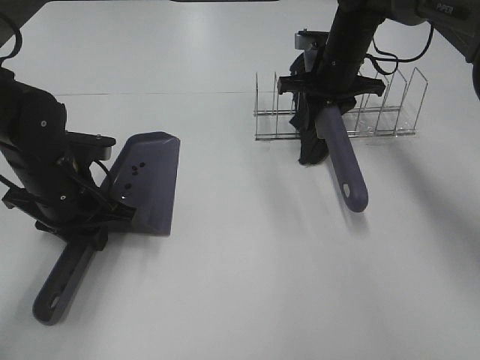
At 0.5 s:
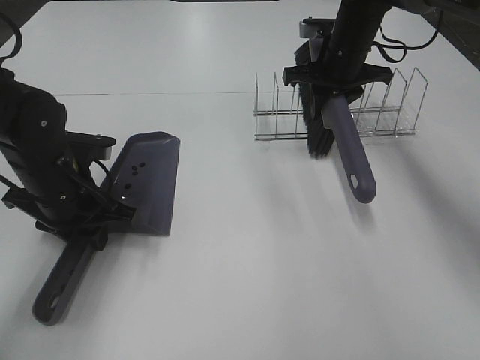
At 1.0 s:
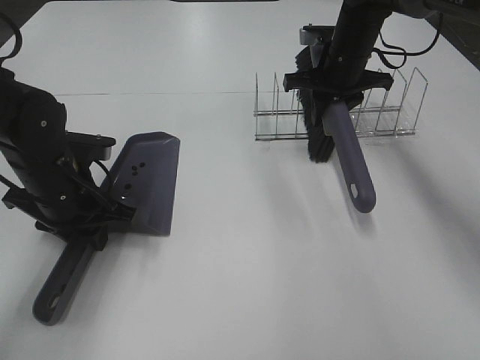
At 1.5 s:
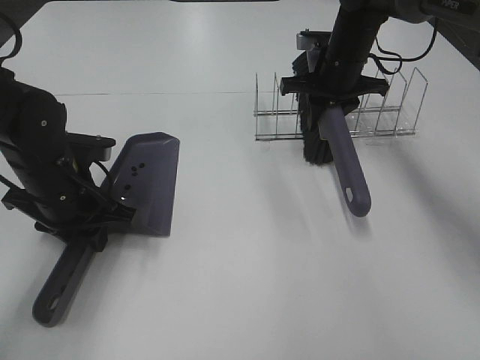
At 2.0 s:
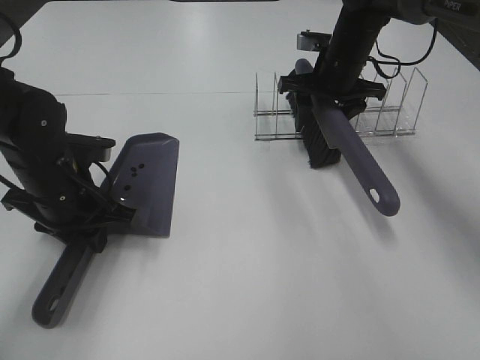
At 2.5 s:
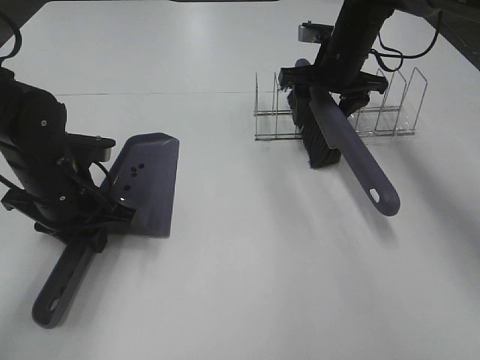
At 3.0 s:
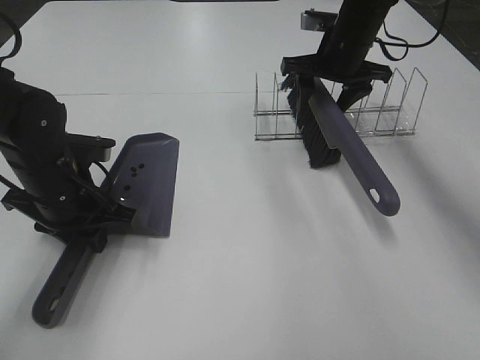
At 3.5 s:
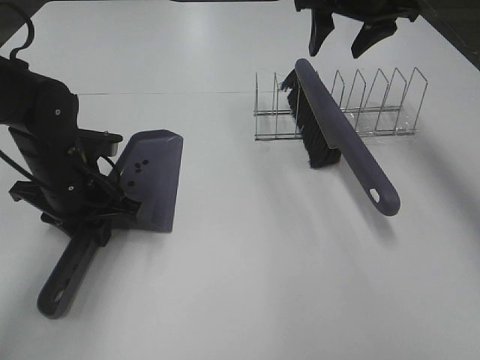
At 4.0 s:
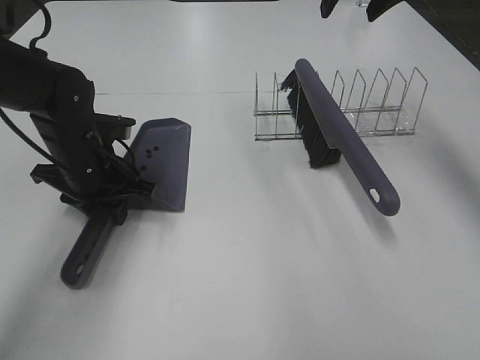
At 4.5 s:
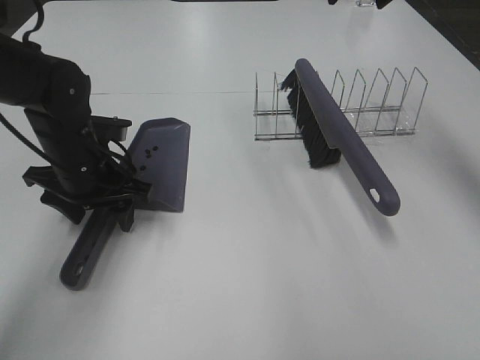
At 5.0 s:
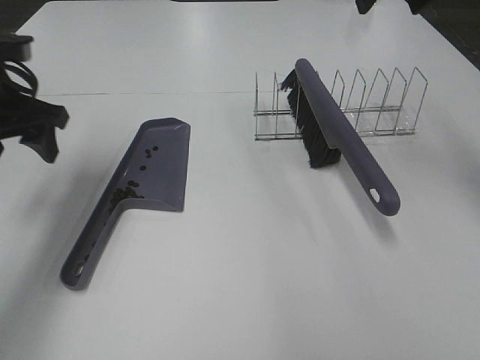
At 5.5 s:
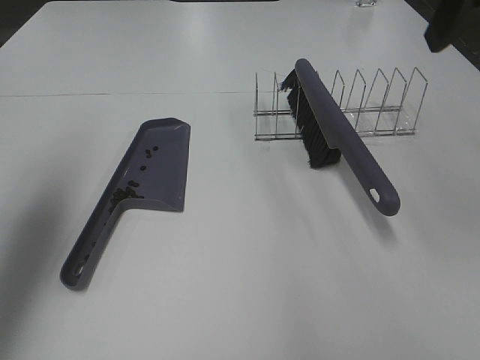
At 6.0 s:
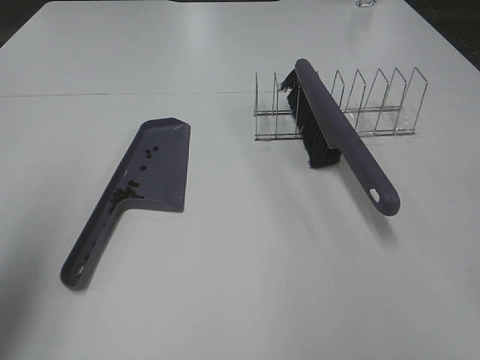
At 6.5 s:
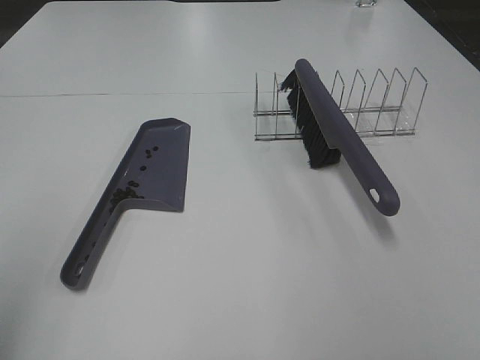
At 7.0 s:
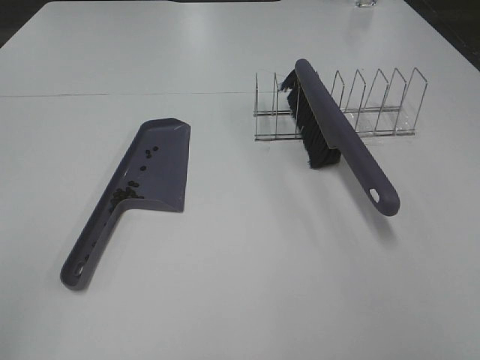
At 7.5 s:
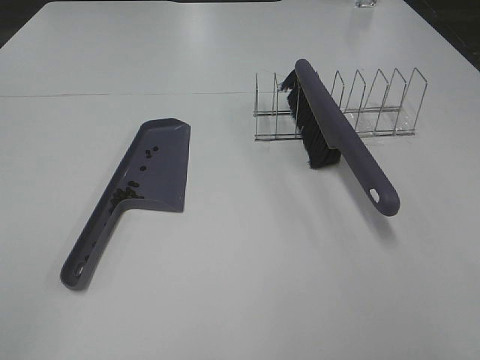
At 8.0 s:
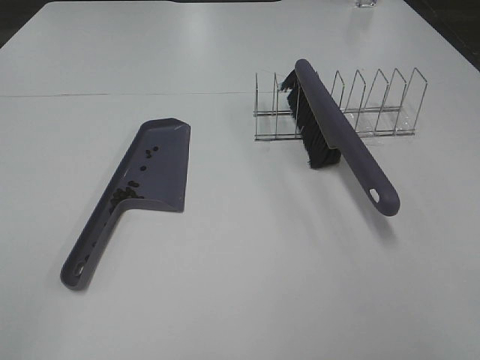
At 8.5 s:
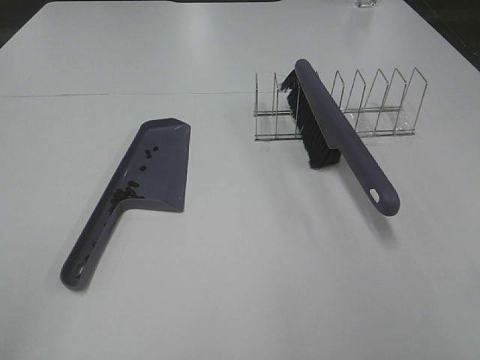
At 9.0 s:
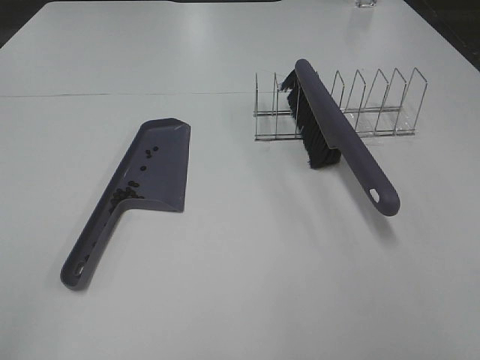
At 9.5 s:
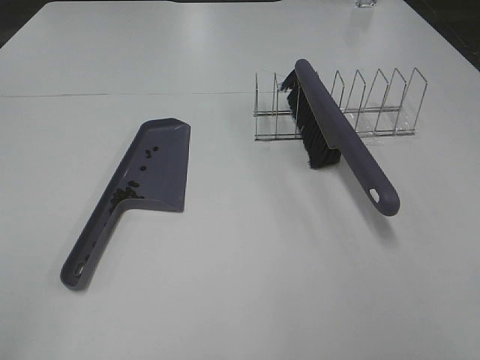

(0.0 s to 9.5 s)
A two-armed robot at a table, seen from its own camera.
Task of the whole recording: Sweep Coffee Bean.
Step, 0.0 s - 2.5 s: Right hand:place the broom on the rack.
Step, 3.0 s - 4.0 s: Left hand:place the dustpan on the table.
0.0 s - 2.0 s: The right gripper opens up.
2.0 s - 4.0 s: The right gripper travels upward by some 20 cm.
4.0 s - 5.5 s: The right gripper travels backward by about 20 cm, while the left gripper is displaced upward, to the left and backward by about 25 cm, and opens its fingers.
5.5 s - 7.5 s: The two grippers go approximately 25 cm backward.

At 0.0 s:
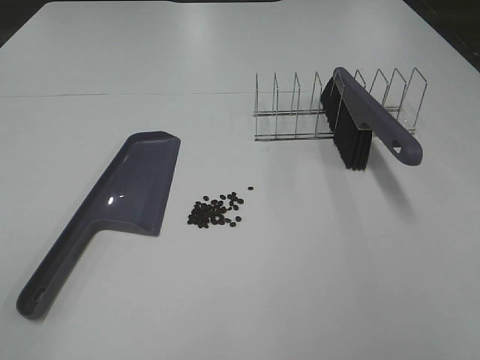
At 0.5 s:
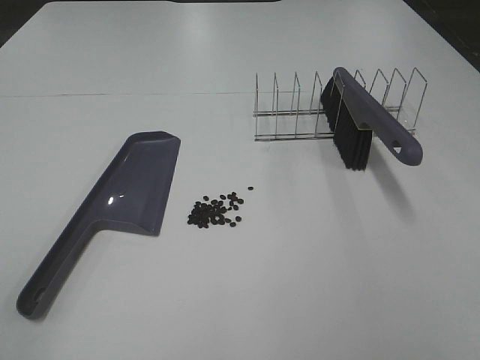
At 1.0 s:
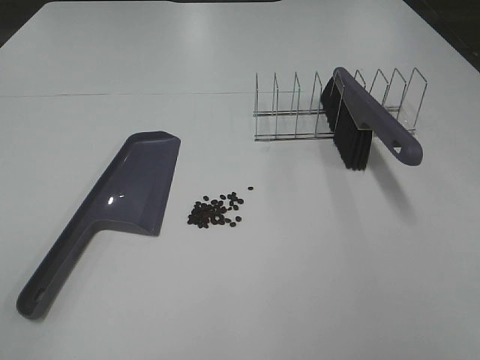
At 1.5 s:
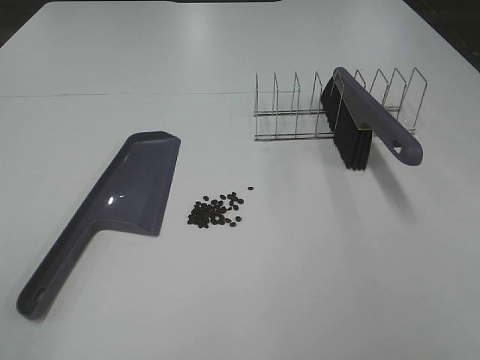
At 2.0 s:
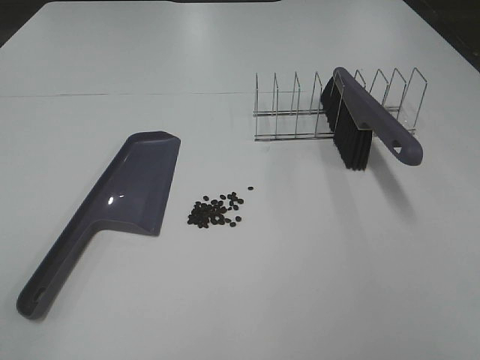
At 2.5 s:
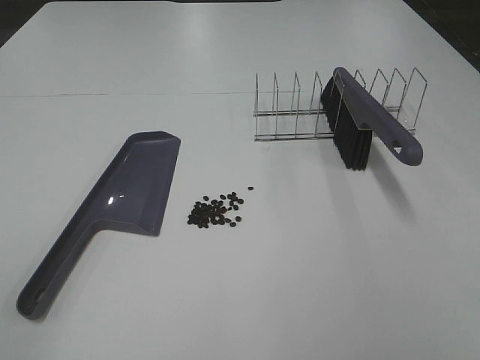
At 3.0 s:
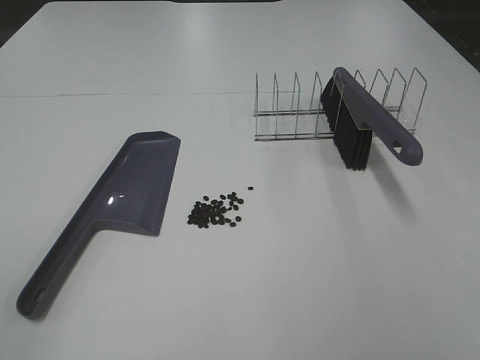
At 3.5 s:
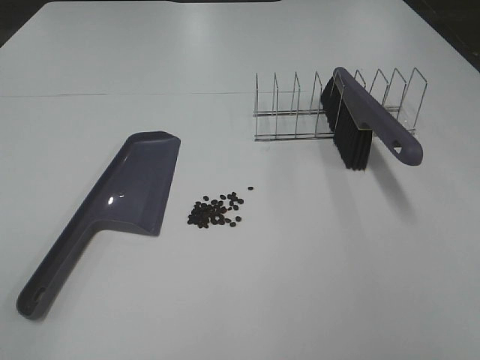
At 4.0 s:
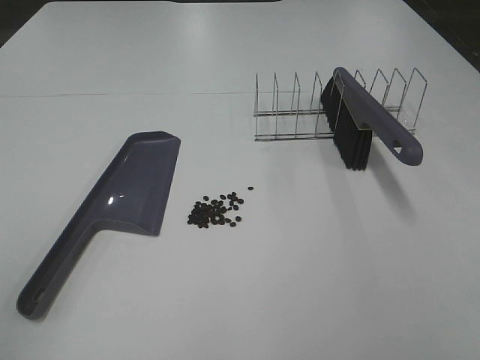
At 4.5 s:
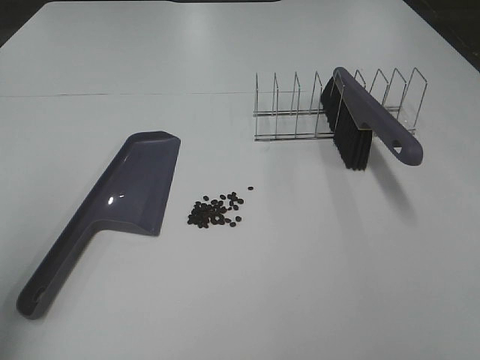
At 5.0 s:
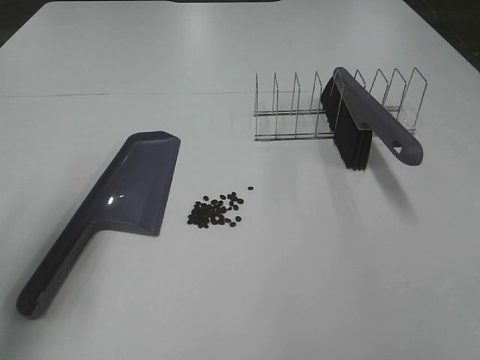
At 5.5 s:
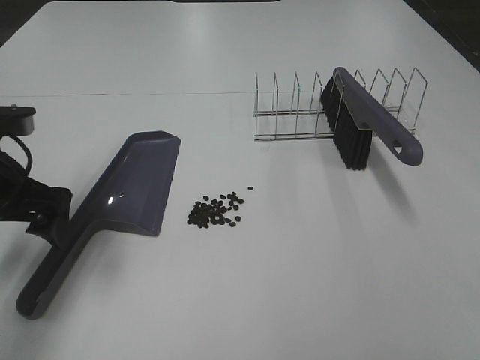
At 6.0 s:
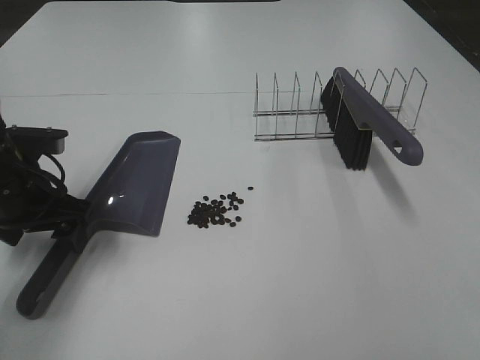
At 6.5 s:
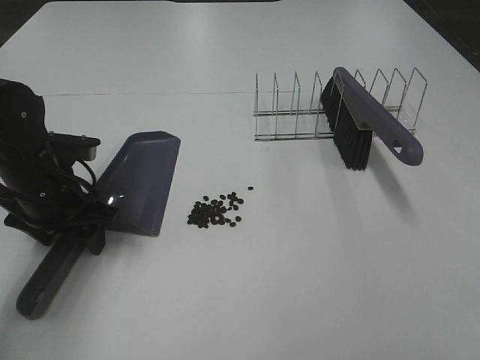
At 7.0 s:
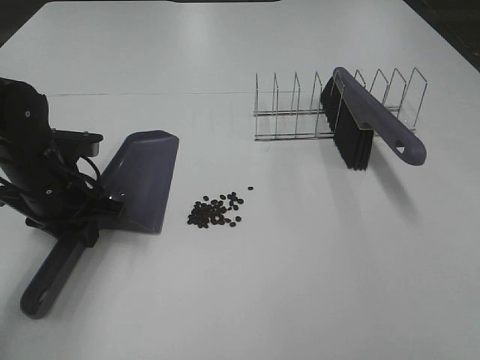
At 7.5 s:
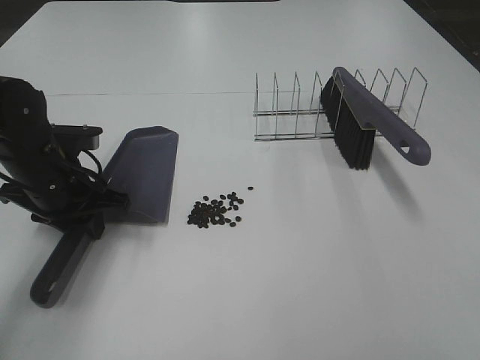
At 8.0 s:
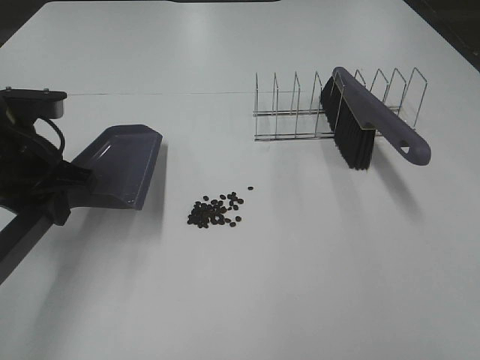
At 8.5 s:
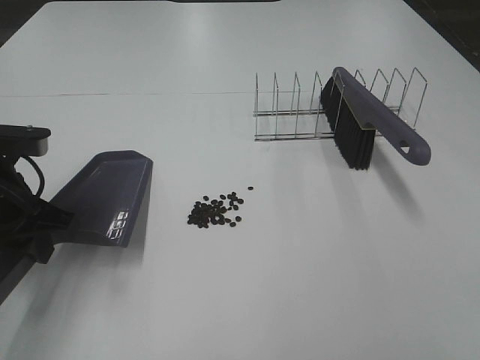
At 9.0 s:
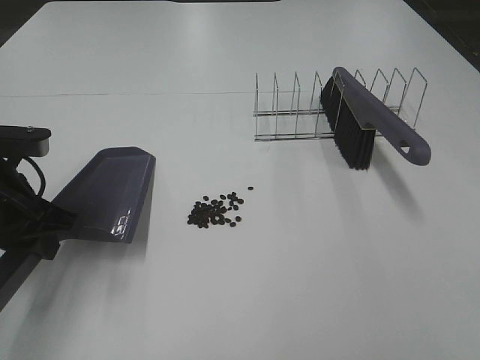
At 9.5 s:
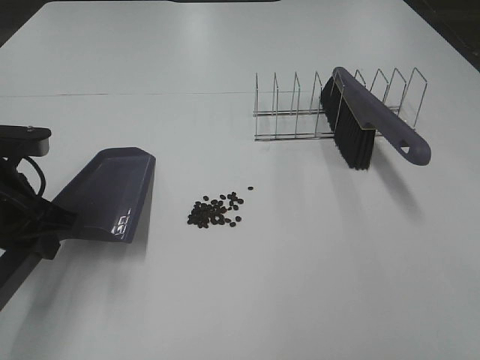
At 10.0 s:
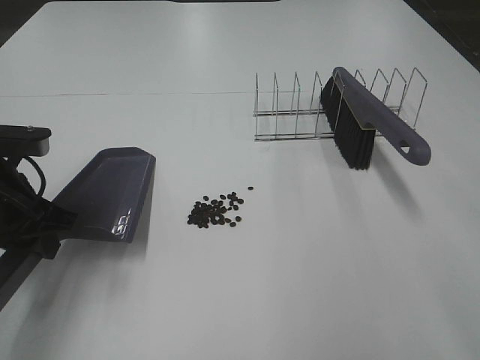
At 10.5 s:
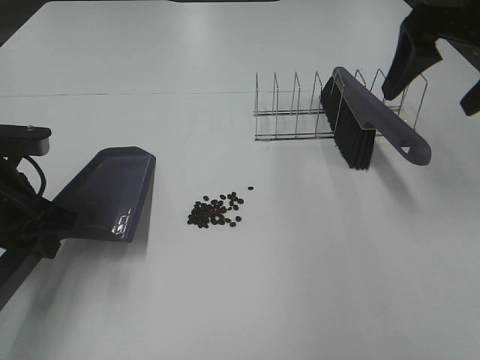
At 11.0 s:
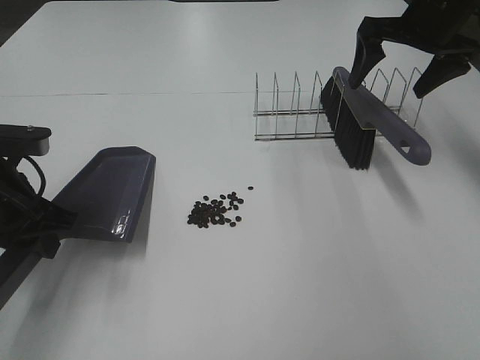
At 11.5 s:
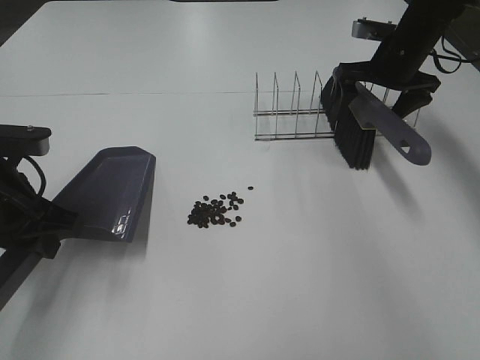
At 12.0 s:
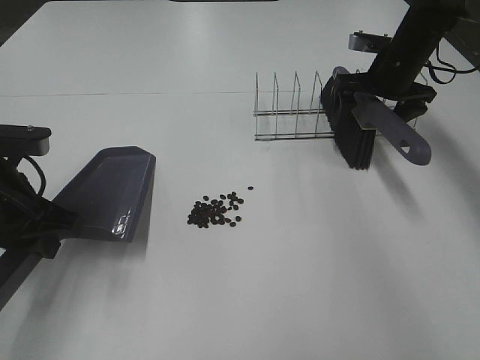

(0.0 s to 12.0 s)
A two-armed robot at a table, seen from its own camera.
Task of the whole recording: Sweep Coffee Bean.
Step, 0.0 s - 7.0 s: Left hand: grab the dustpan.
0.0 s - 2.0 s: The two grippers keep their place.
4.0 s - 6.0 s: The left gripper shifts about 35 cm forward and downward.
6.0 s - 8.0 s: The left gripper travels upward by some 5 cm, and closes up.
10.0 s - 12.0 s: The right gripper is displaced forward and downward by approximately 40 cm.

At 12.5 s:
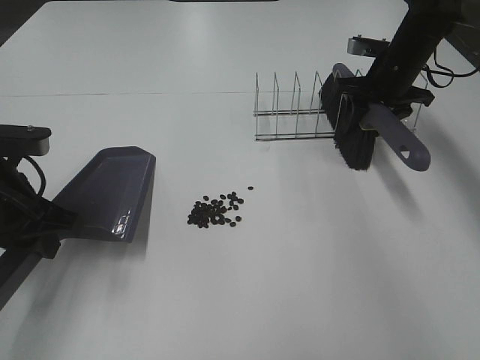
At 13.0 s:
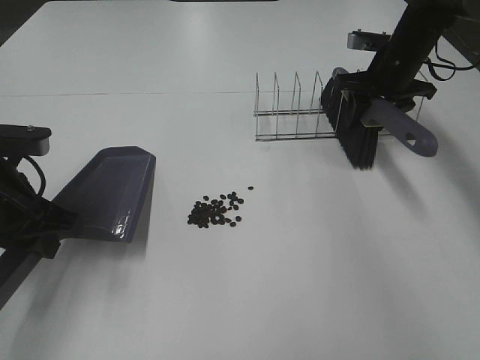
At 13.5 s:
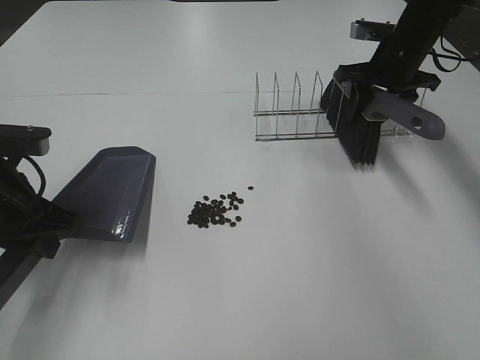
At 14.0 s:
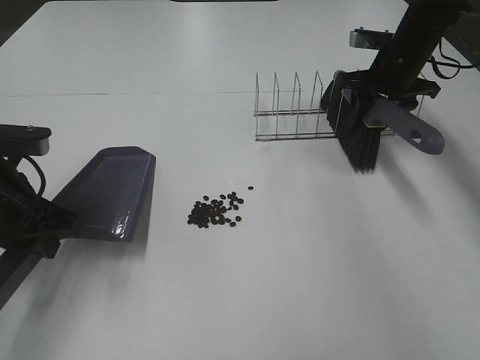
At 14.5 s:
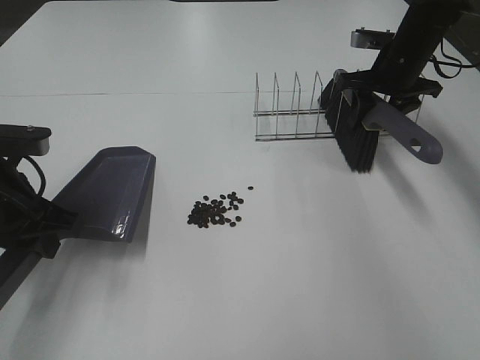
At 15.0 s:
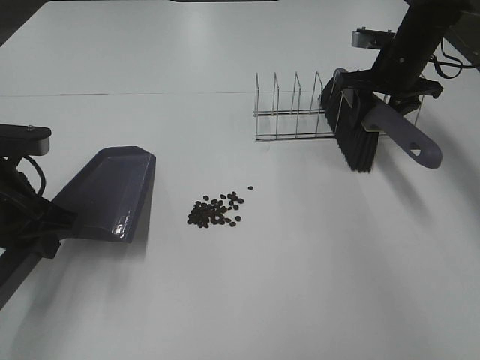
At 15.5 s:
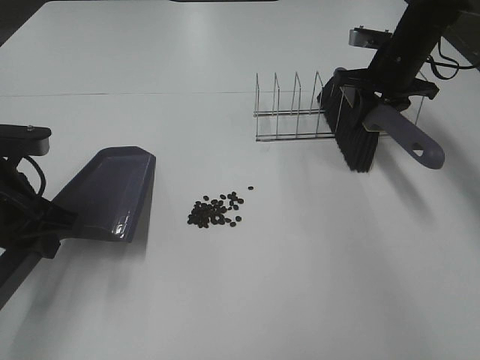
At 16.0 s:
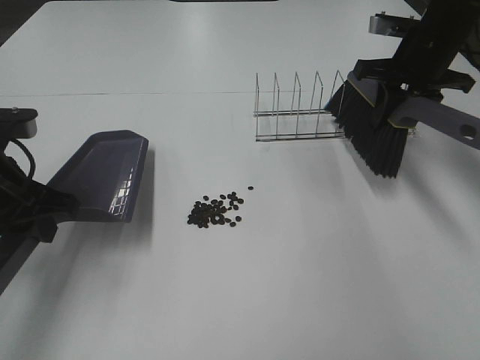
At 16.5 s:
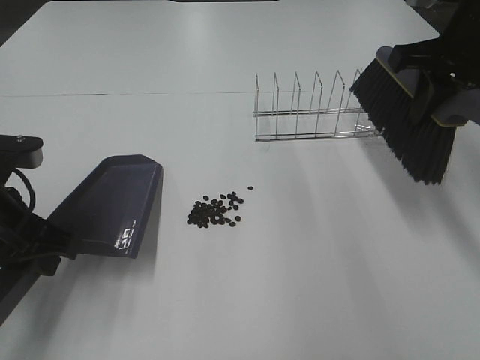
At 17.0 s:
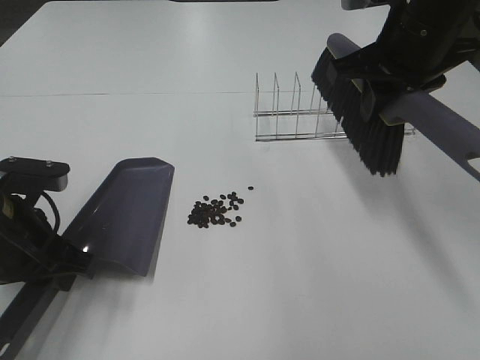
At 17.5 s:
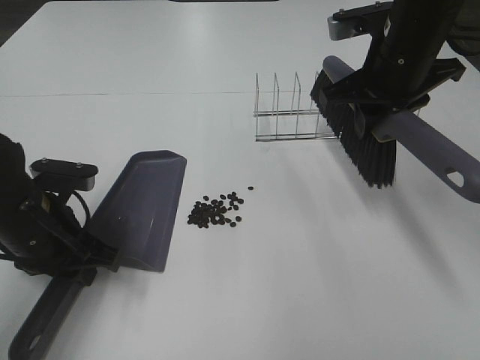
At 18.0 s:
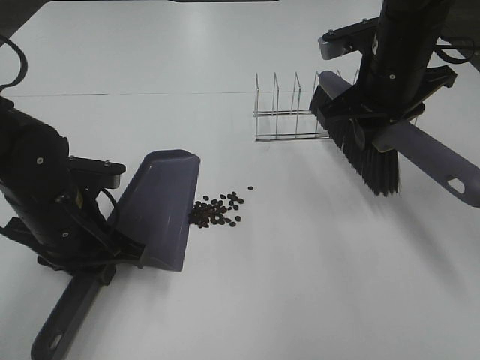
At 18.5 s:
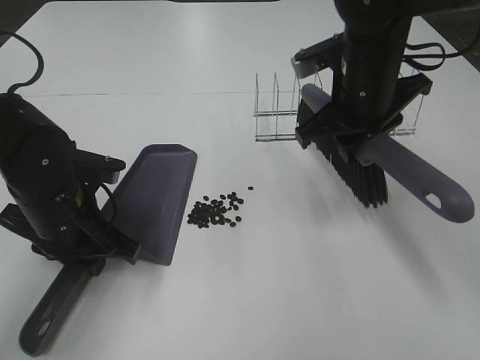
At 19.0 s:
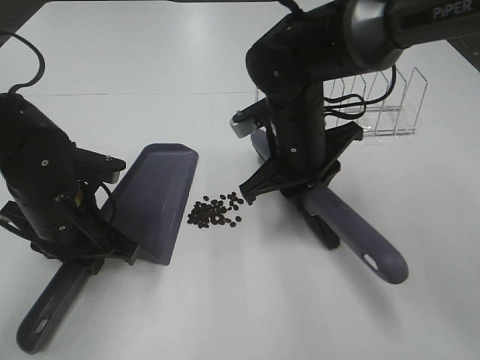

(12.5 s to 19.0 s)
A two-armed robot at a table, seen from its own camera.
Task of the whole recording: Sweep Coffee Bean.
Step, 12.5 s - 17.5 s: Left hand: move the dustpan to the left side of the coffee beans.
12.5 s - 14.5 s: The grippers stay close to where they were, moving slightly.
14.5 s - 17.0 s: The right gripper travels backward, upward and to the left by approximately 20 cm.
17.0 s - 19.0 s: The left gripper ends up about 5 cm from where it was, while the right gripper goes approximately 15 cm downward and to the left.
